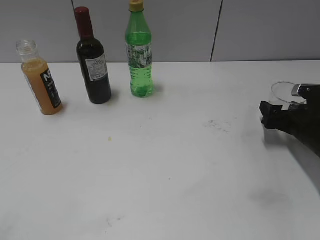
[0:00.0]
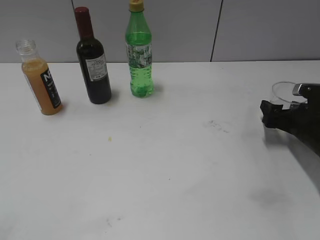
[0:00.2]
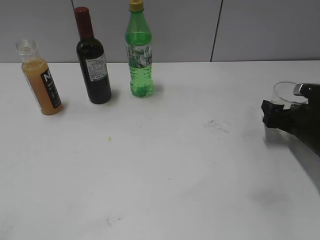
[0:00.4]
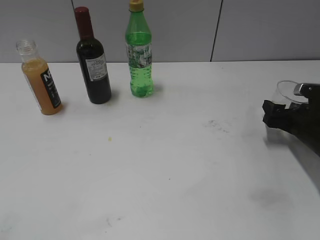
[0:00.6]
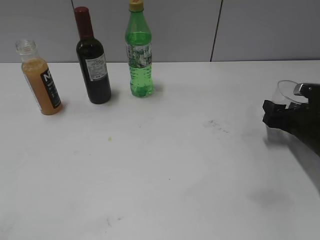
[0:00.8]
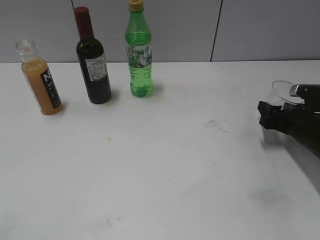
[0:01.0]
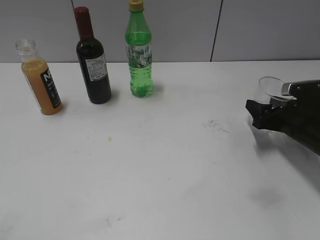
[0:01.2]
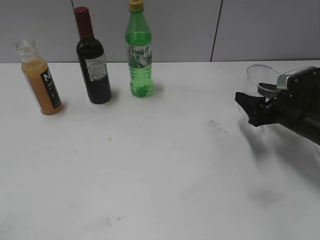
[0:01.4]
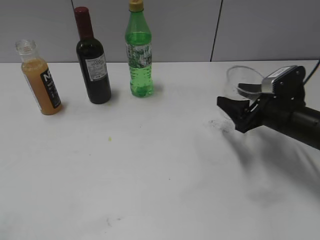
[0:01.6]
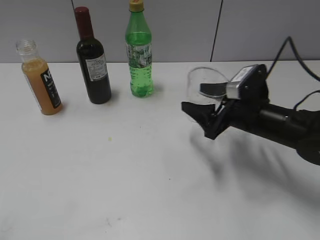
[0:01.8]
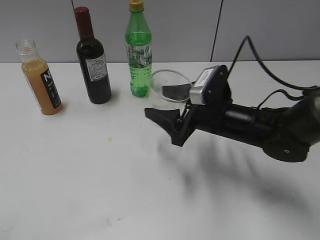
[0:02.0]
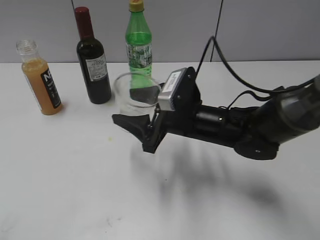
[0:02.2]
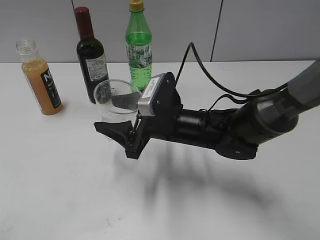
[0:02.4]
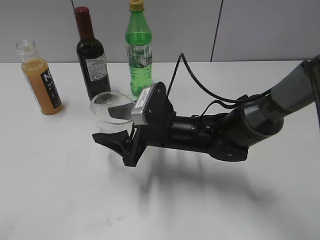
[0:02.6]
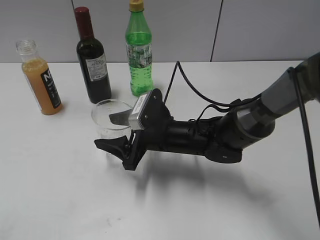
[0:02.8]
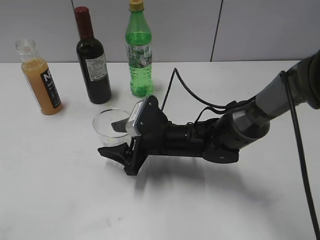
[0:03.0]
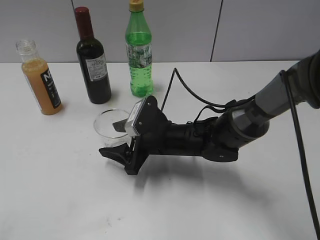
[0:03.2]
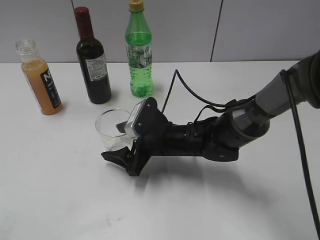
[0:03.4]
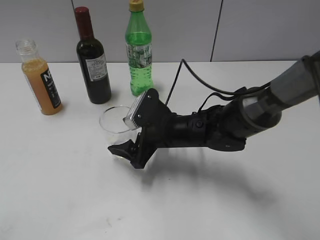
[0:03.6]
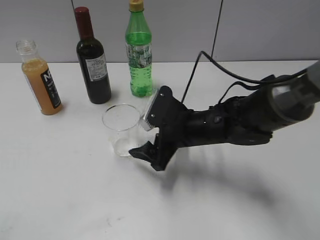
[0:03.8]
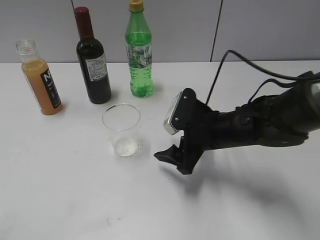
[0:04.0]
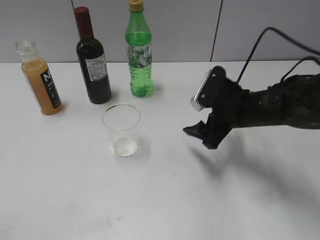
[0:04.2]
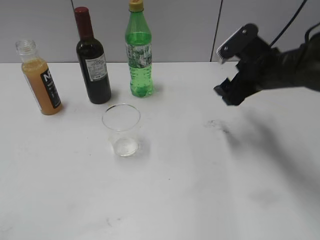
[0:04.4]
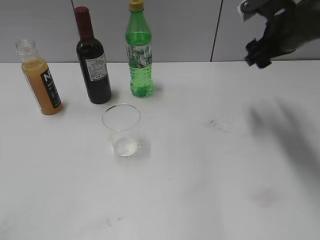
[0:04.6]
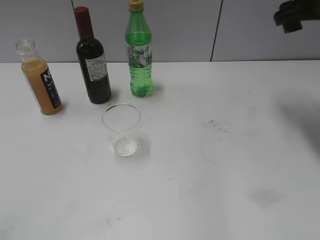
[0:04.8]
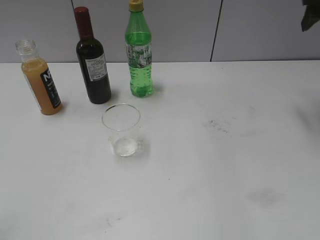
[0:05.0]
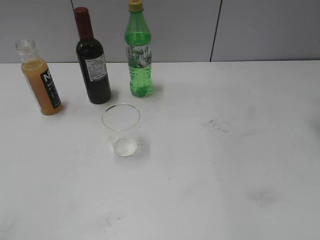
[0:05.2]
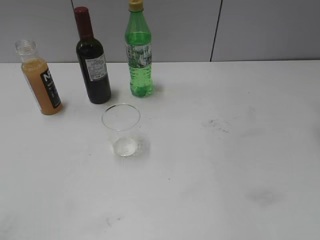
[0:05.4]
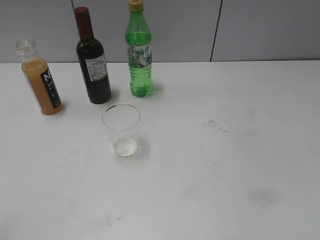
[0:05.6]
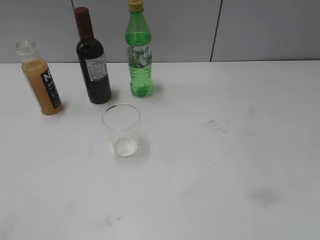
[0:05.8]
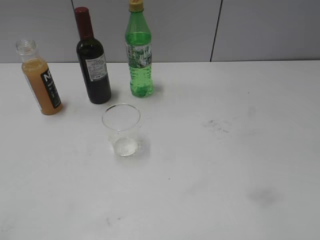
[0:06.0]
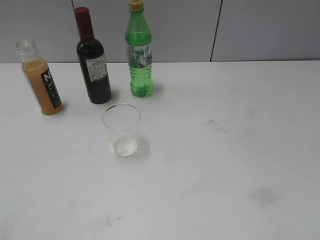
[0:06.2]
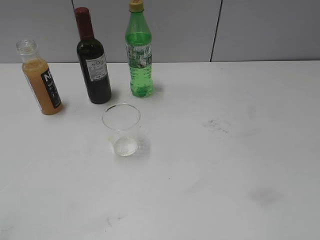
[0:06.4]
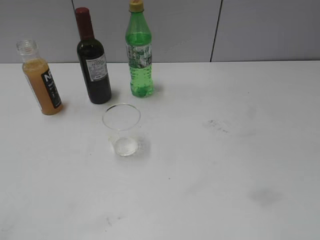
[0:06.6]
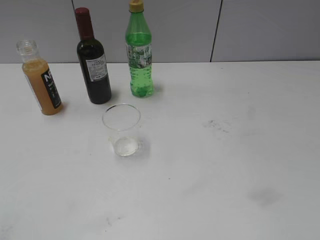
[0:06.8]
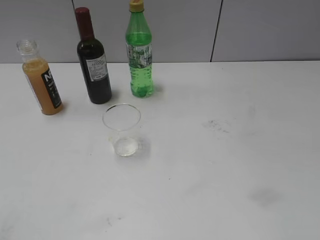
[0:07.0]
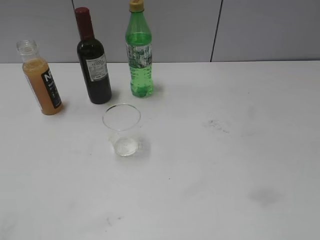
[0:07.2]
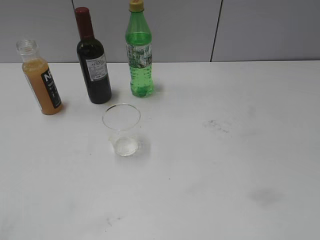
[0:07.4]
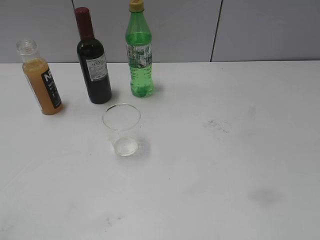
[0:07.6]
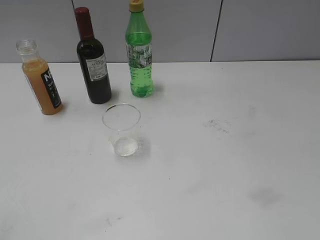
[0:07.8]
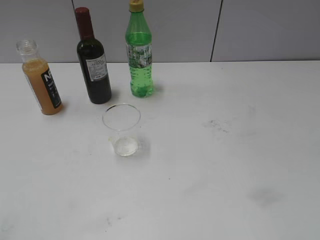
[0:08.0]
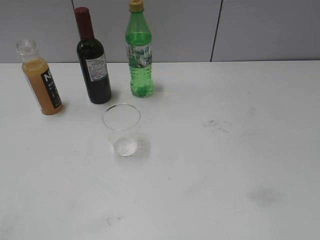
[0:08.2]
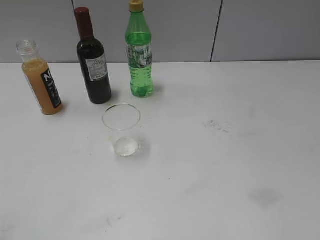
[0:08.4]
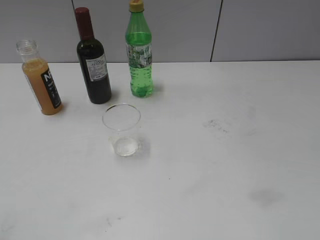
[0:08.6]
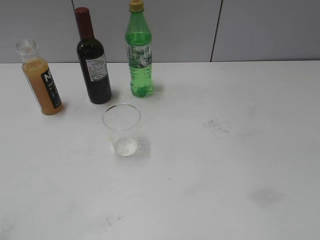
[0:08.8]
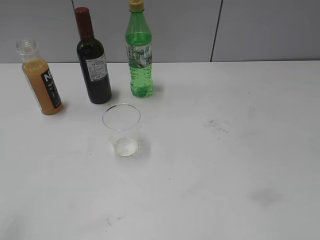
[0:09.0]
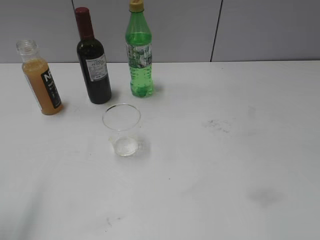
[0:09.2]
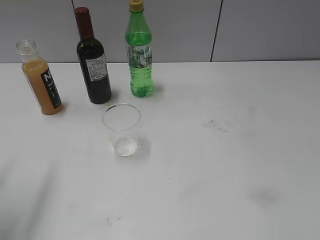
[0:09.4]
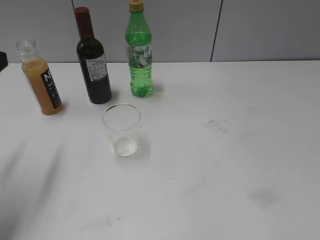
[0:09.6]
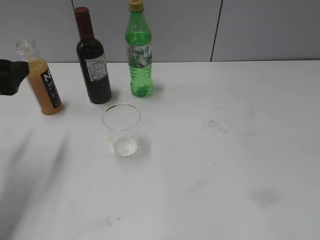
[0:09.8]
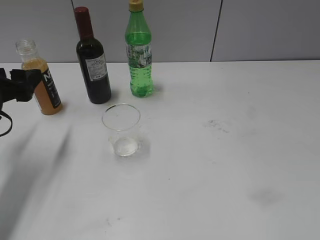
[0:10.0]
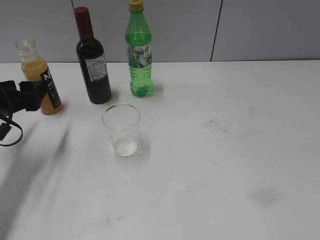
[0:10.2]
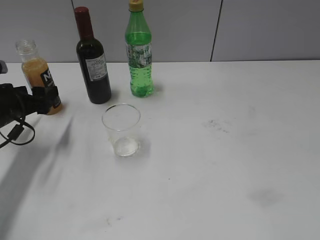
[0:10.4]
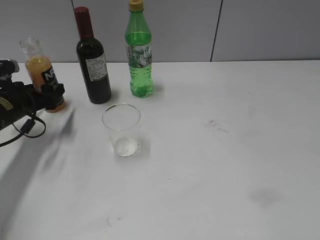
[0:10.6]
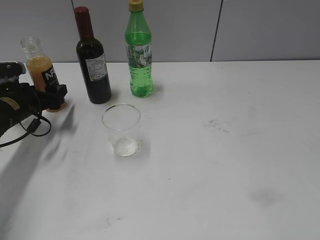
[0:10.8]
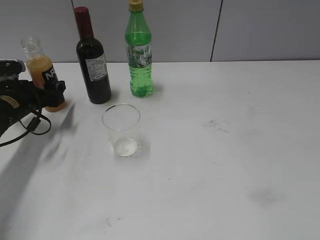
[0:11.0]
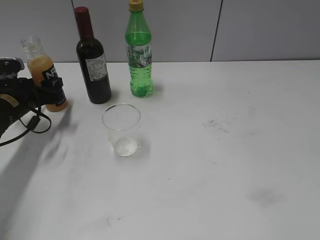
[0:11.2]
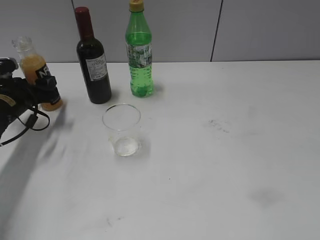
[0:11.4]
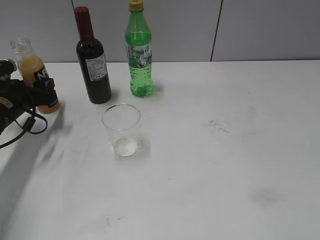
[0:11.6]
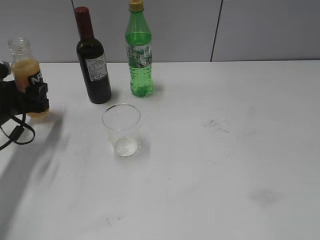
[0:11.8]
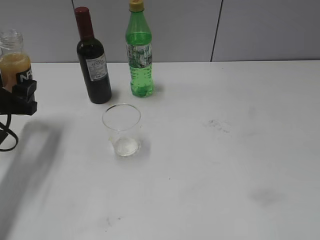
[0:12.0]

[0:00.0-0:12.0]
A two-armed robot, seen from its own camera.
Step, 0:01.0 to 0:03.6: Place the transparent cup on the table with right gripper.
Step, 0:04.0 to 0:11.4: Grasp the bottle with orange juice with left gripper.
0:00.0 to 0:01.6: The right gripper heads to the left, covering about 5 cm, and closes.
0:01.6 to 0:03.0: The right gripper goes roughly 20 cm to the left.
0:03.0 to 0:04.4: The right gripper moves to the right and upward, about 20 cm, and opens its fingers.
0:04.4 to 0:06.0: The right gripper shifts some 25 cm backward, to the right and upward, and closes its fingers.
0:09.0 to 0:10.4: The left gripper moves forward and downward, some 30 cm.
0:10.4 to 0:12.0: The left gripper closes.

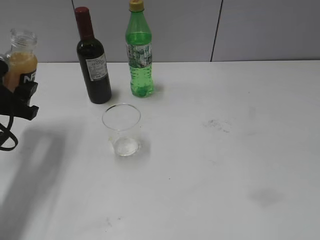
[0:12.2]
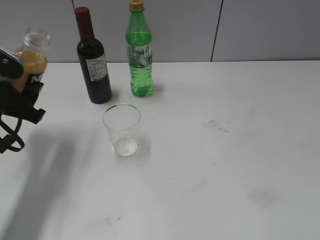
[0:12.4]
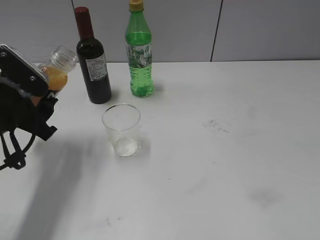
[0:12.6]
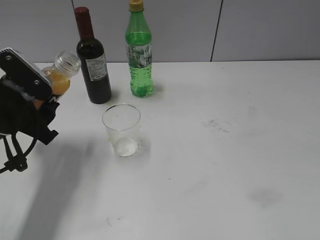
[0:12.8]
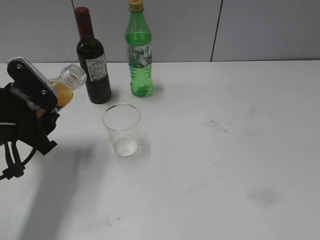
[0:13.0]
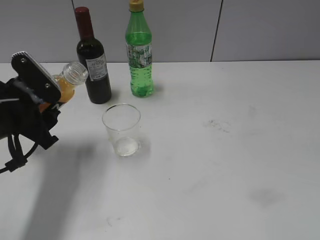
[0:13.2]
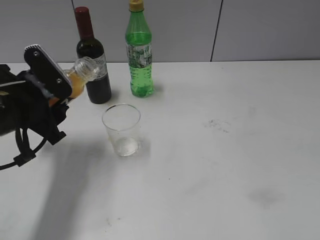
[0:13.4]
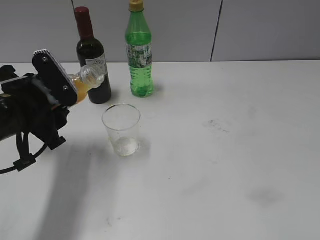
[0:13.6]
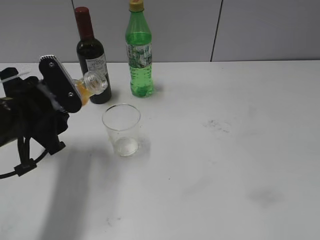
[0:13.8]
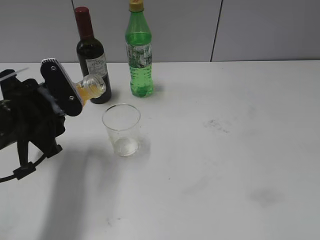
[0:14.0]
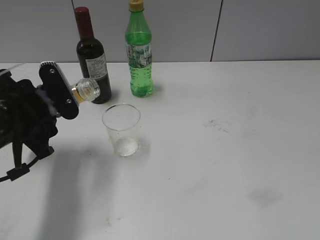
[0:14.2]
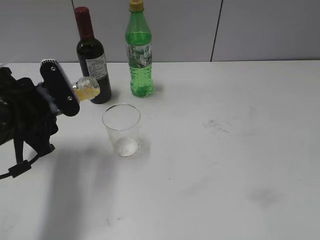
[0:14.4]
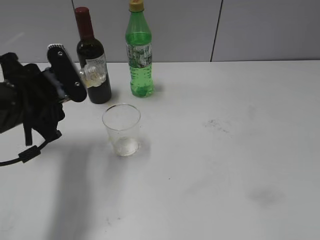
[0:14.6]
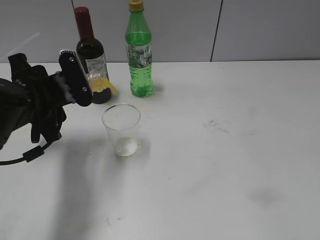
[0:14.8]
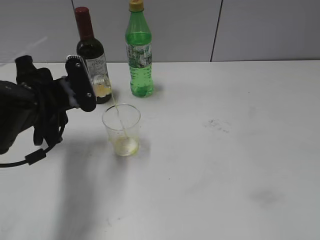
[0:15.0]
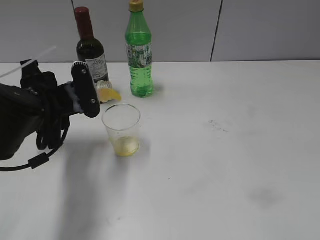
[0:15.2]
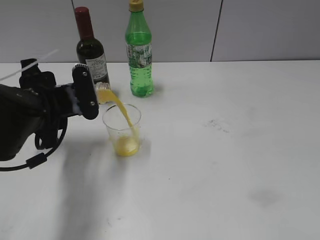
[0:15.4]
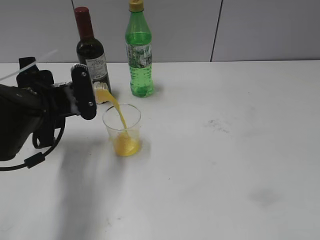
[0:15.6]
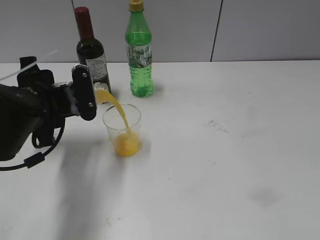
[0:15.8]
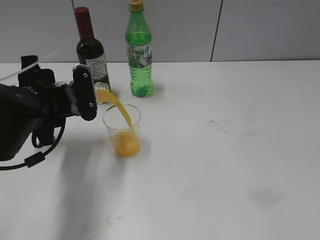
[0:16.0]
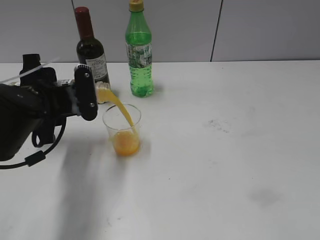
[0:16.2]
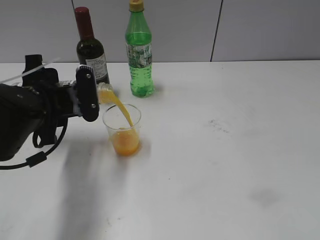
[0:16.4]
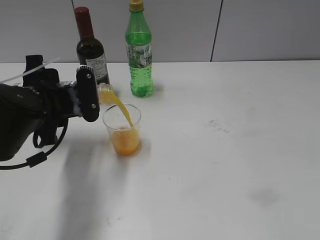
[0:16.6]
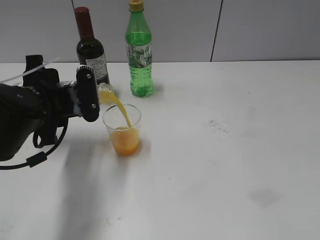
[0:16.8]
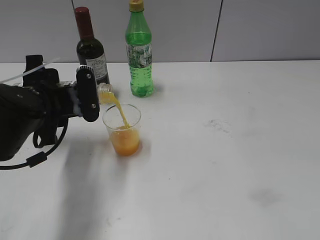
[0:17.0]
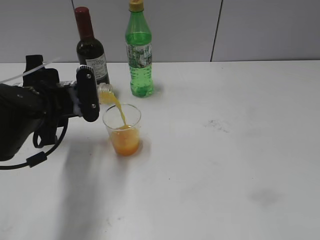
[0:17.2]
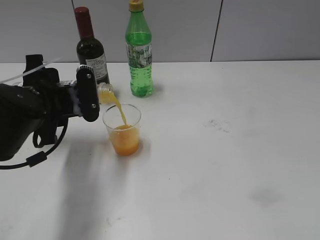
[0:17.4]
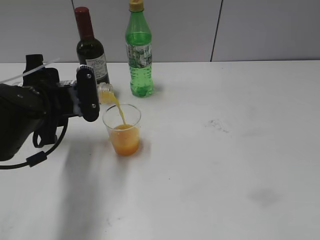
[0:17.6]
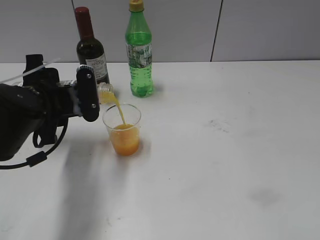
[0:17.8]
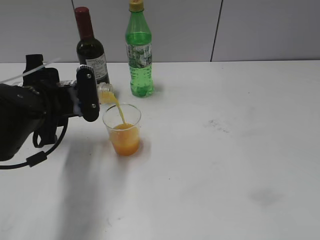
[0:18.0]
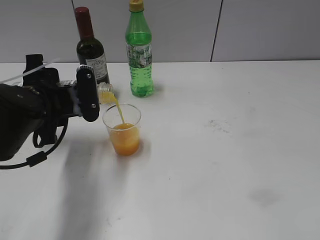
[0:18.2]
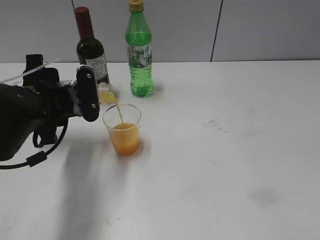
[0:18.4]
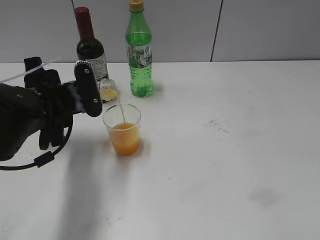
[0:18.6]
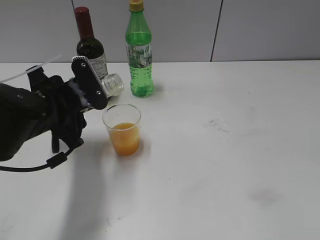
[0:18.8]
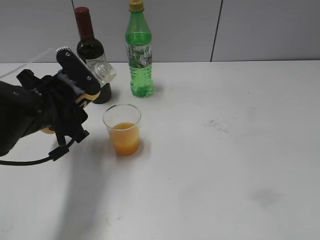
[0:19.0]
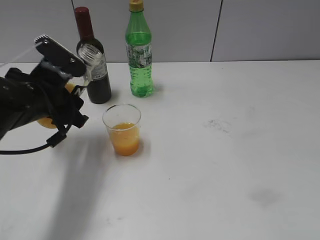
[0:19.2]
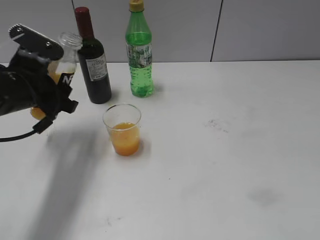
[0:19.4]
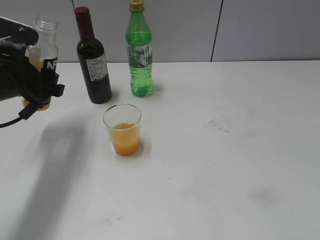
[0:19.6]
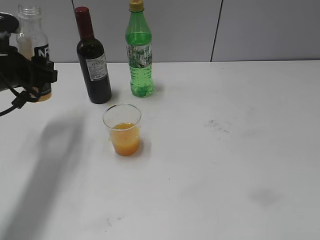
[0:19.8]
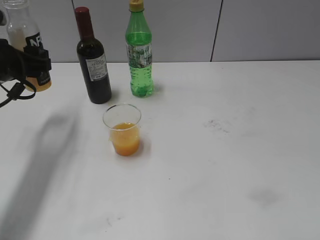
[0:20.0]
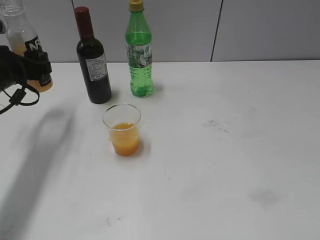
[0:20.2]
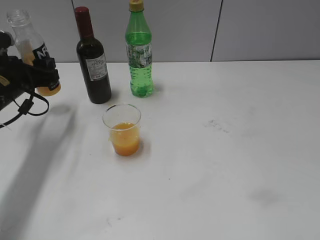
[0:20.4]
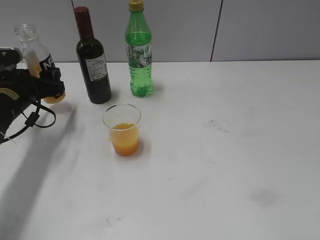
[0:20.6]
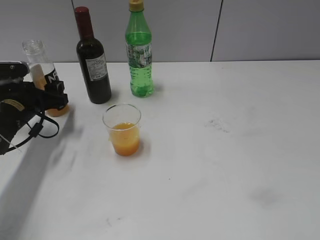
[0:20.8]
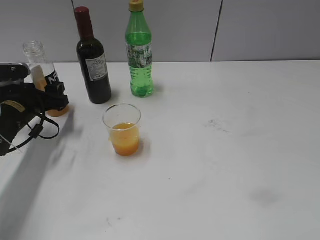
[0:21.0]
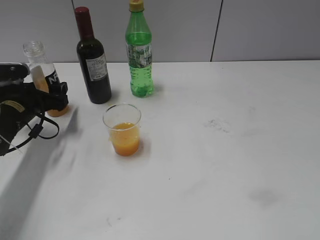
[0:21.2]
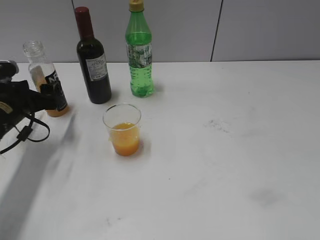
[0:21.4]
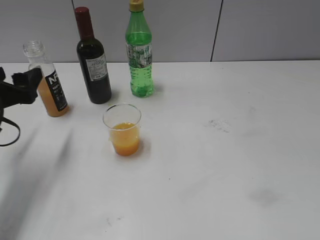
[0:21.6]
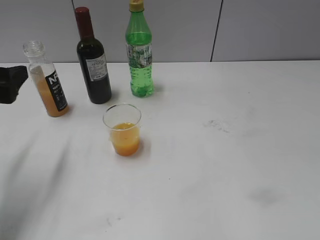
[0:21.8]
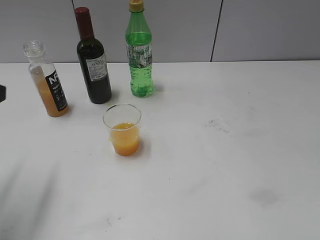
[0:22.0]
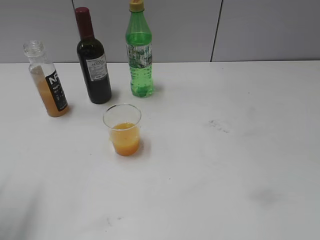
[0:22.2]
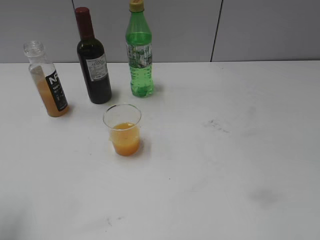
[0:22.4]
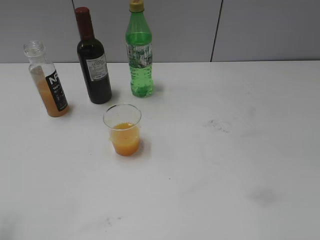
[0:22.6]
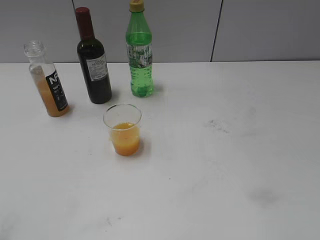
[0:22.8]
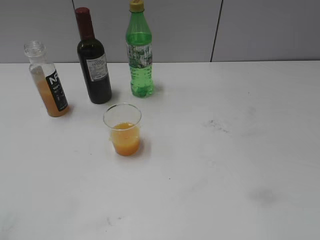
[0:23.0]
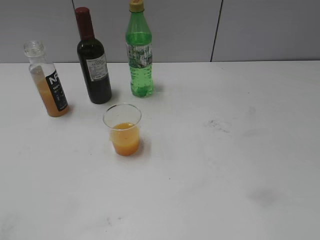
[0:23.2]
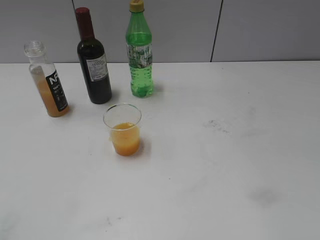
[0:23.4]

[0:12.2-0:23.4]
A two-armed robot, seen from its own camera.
Step, 0:12.2 to 0:18.8: Pour the orange juice from bottle to cup with left gripper.
Step, 0:19.0 to 0:21.2: Place the orange juice bottle on the table with left gripper.
0:12.2 to 0:13.8: The left gripper heads to the right, covering approximately 10 cm.
0:15.4 to 0:18.6: The grippers move only a little.
0:18.6 to 0:20.2: The left gripper is displaced to the left and forward by some 10 cm.
0:20.2 to 0:21.8: The left gripper shifts about 10 cm backward, travels downward and back again, approximately 10 cm each way, and opens up.
0:21.8 to 0:23.4: The left gripper heads backward, covering about 20 cm.
